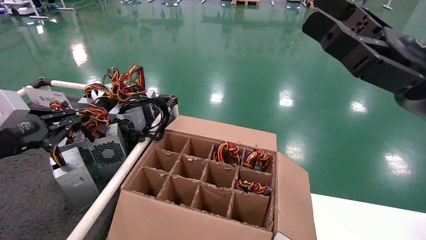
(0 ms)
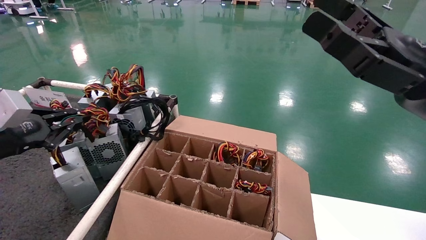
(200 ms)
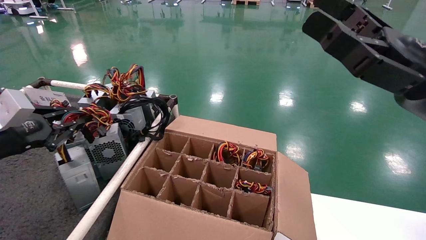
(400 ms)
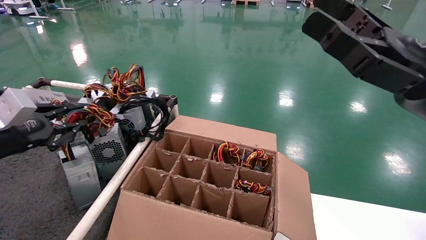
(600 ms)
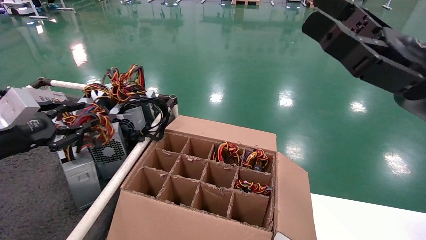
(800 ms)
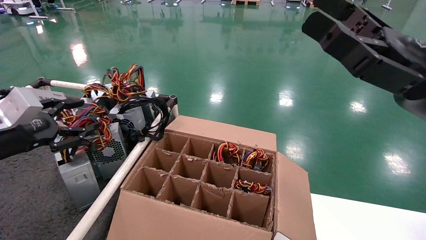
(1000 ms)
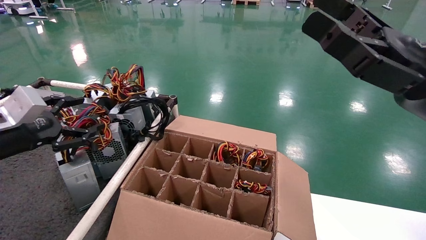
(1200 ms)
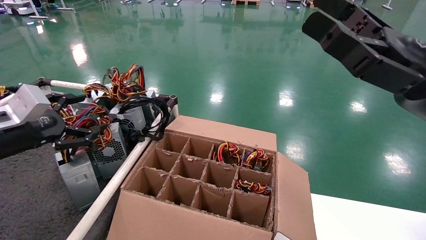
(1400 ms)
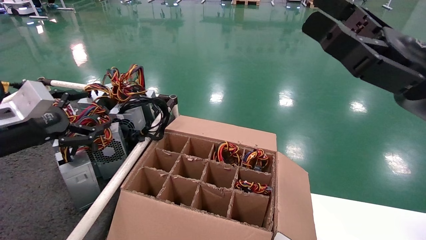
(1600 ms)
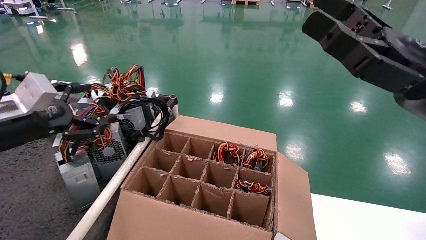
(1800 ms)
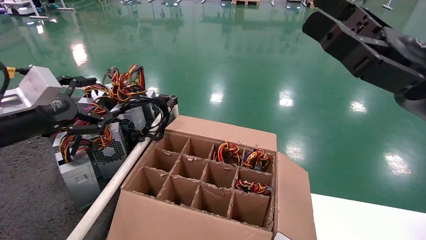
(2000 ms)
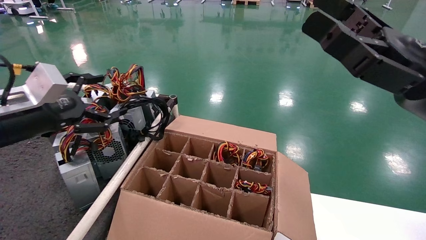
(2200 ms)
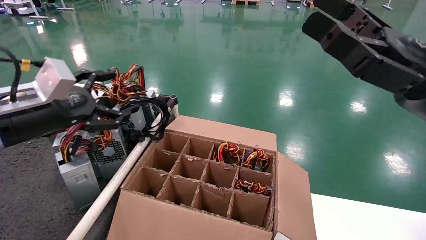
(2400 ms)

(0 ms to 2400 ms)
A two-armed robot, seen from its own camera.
0 ms - 1200 ms: The left gripper opens up.
1200 ms - 2400 ms: The left gripper moves to the right, roughly 5 cm, and opens its fingers.
